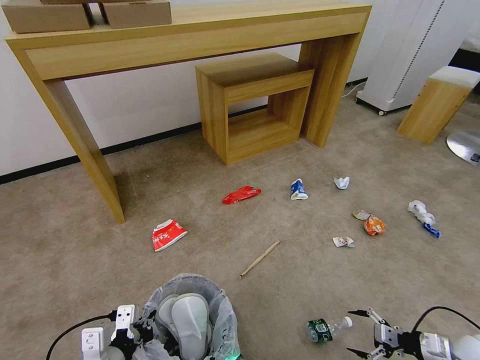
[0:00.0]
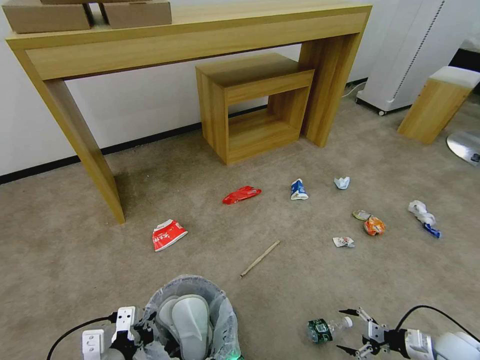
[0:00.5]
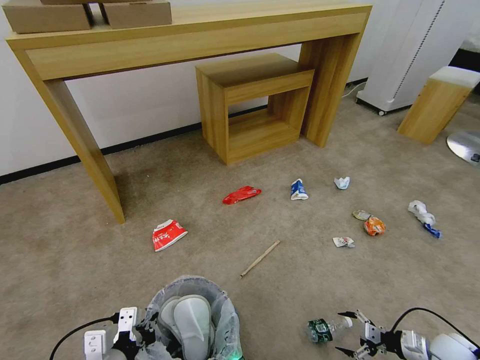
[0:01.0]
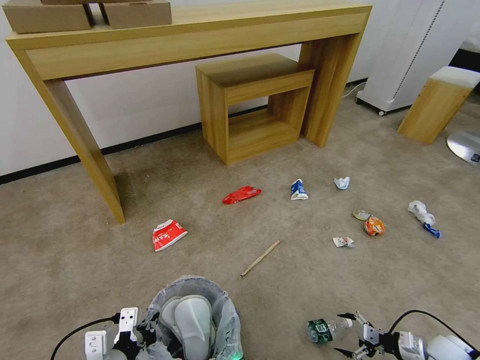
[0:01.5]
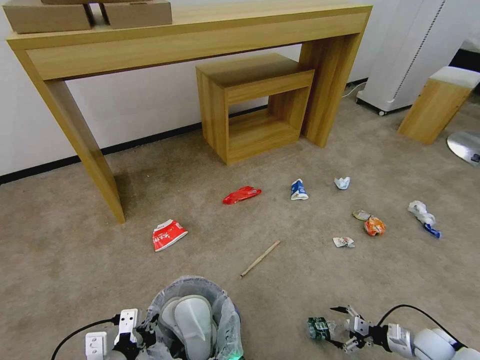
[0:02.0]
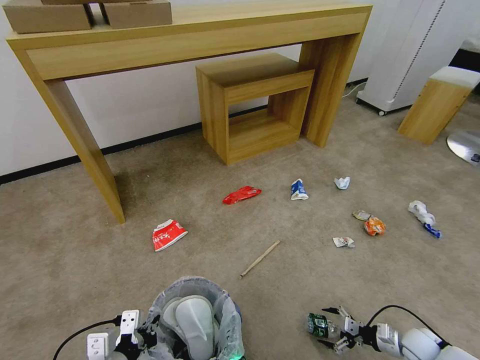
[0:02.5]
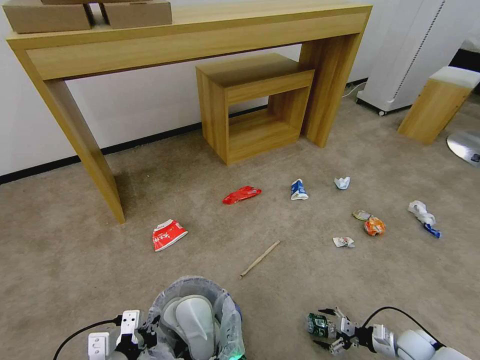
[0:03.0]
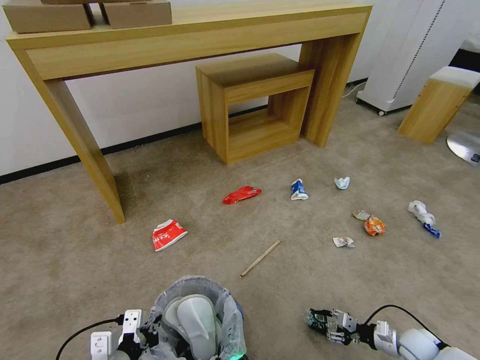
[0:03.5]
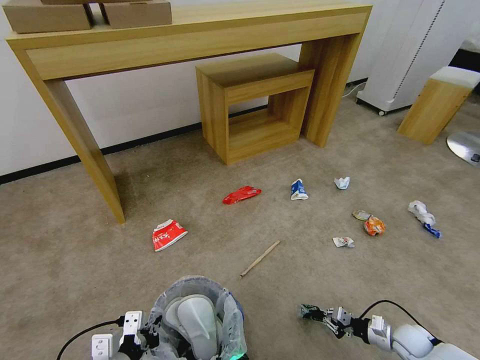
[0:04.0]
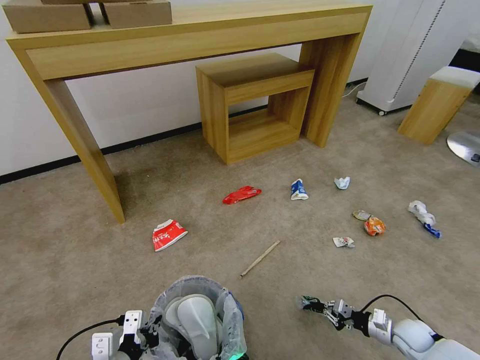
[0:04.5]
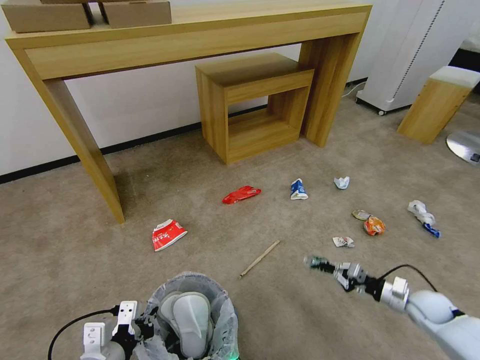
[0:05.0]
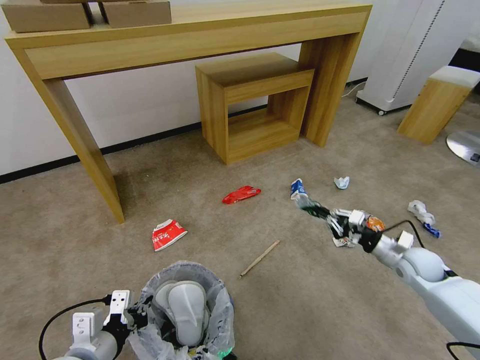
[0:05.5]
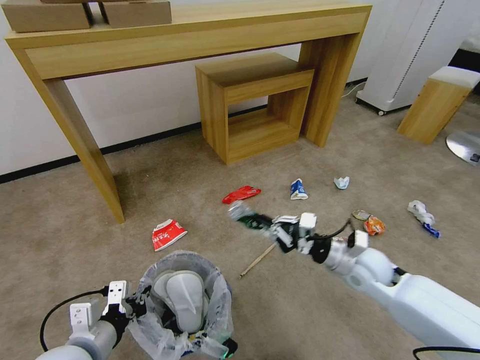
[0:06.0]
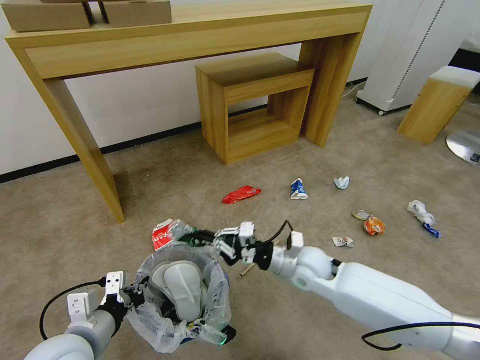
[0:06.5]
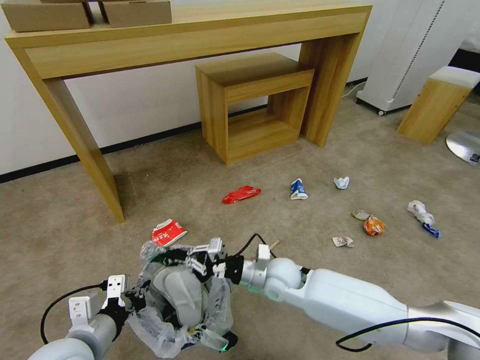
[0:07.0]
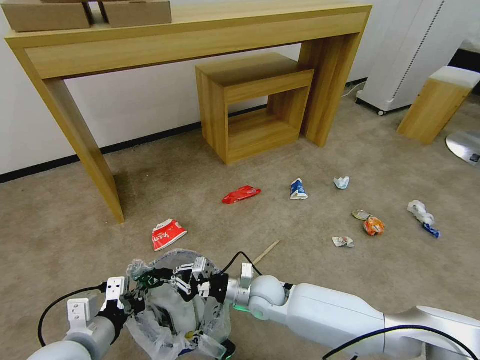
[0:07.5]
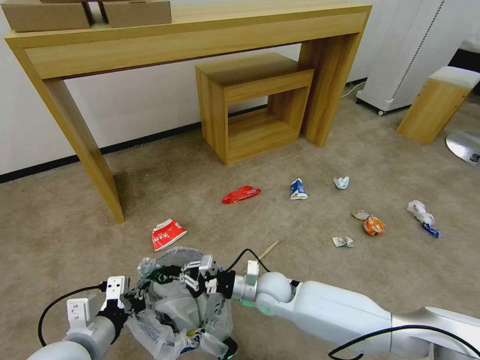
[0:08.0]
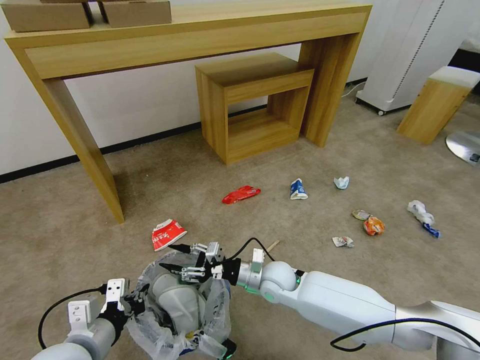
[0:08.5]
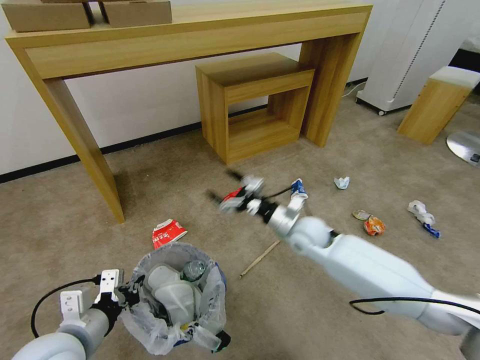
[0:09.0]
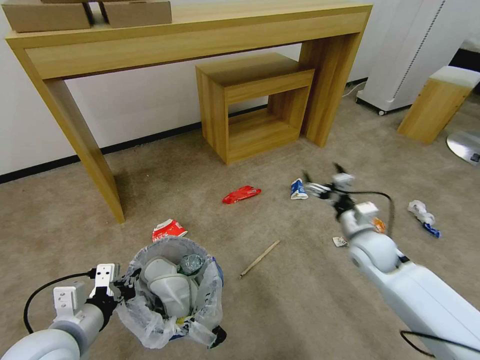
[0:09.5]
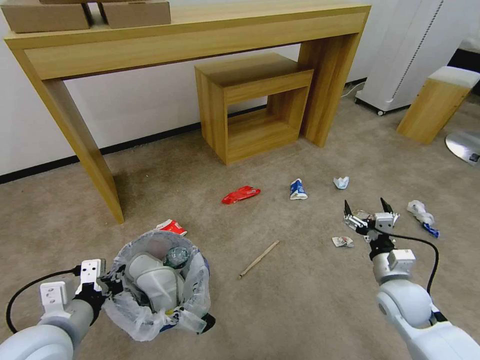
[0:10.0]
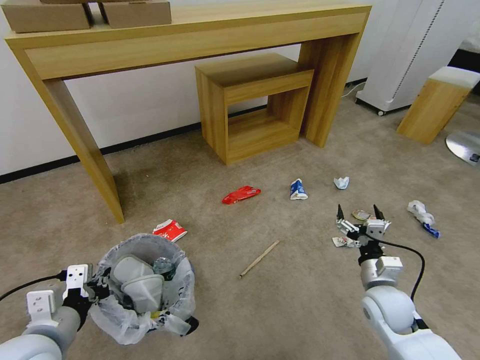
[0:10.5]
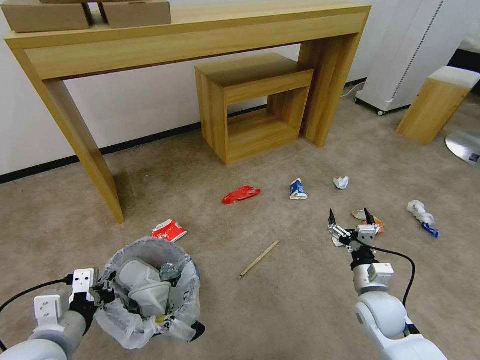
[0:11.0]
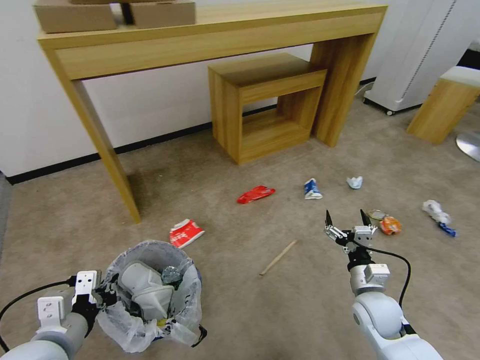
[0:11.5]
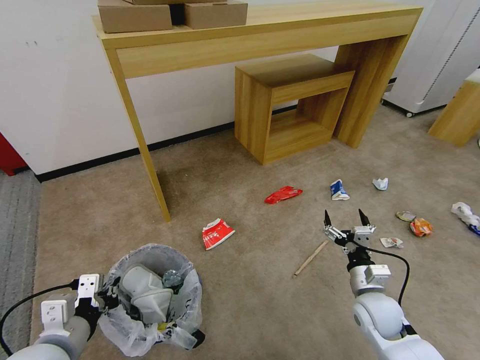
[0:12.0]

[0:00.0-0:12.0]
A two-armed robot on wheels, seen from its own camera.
Task of the whole recording: Pick up the trash bin and place the garbage on the floor into it.
0:00.0 to 0:02.0: The right gripper is displaced downward by roughly 10 cm.
0:02.0 to 0:04.0: The right gripper closes its fingers.
0:04.0 to 0:06.0: The right gripper shifts some 30 cm upward, to the left and forward; the left gripper changes place by roughly 5 cm.
0:06.0 to 0:08.0: The right gripper moves to the left and downward, about 20 cm.
0:08.0 to 0:10.0: The right gripper moves to the right, about 30 cm, and opens up.
0:10.0 to 0:12.0: The right gripper moves roughly 5 cm.

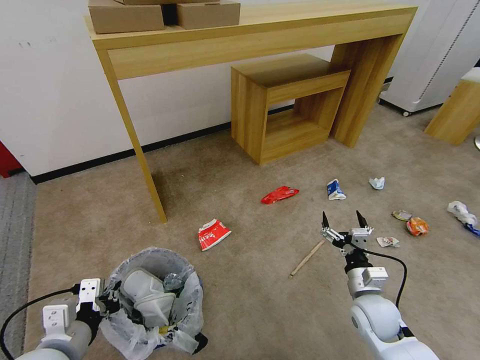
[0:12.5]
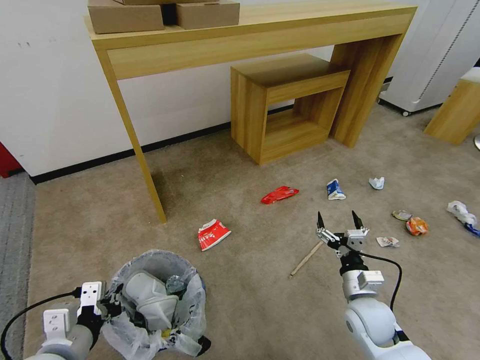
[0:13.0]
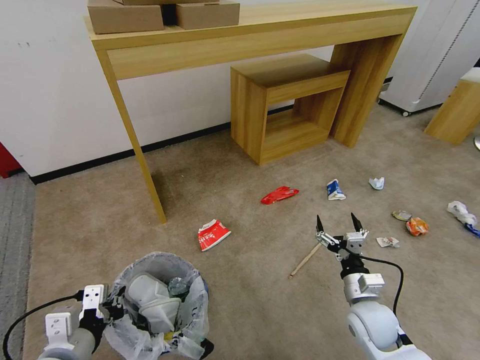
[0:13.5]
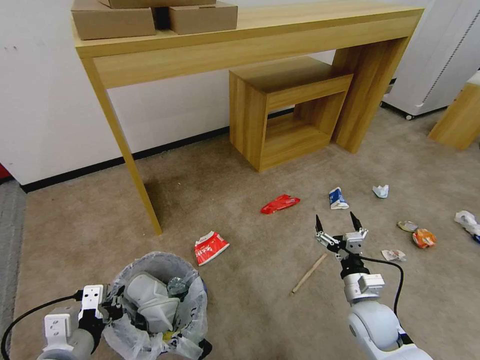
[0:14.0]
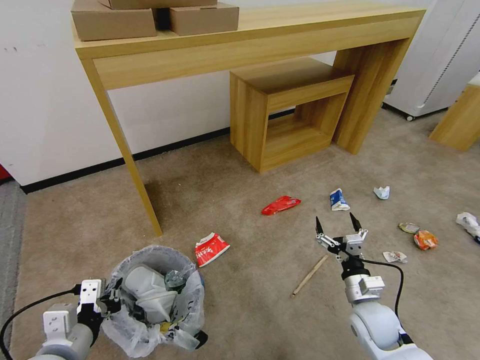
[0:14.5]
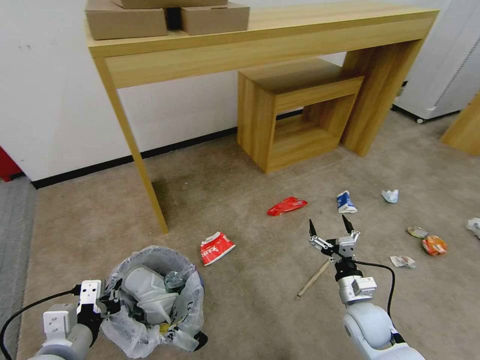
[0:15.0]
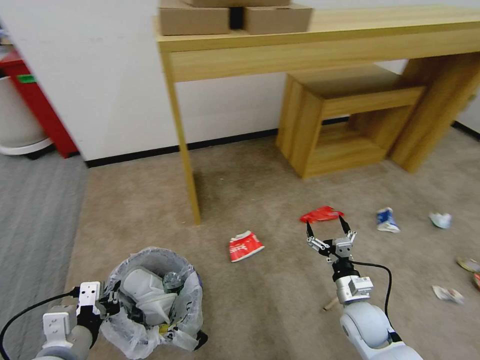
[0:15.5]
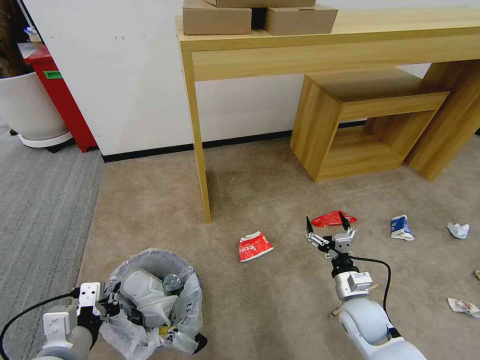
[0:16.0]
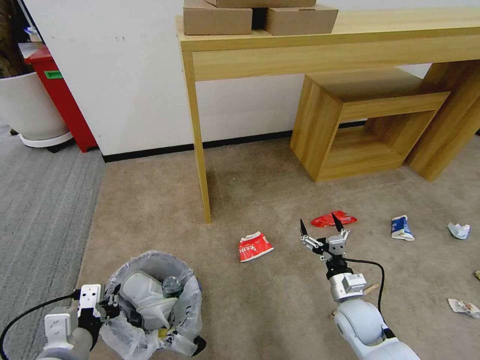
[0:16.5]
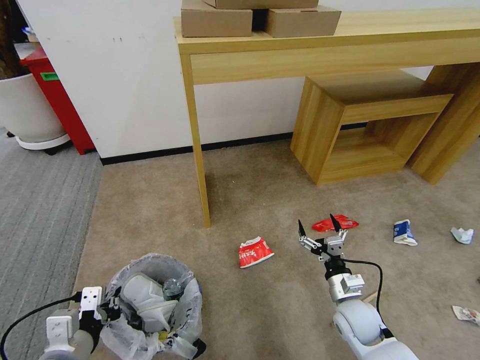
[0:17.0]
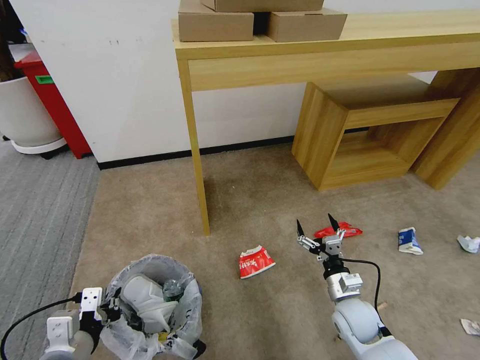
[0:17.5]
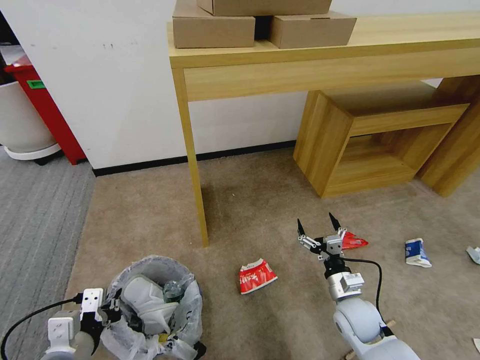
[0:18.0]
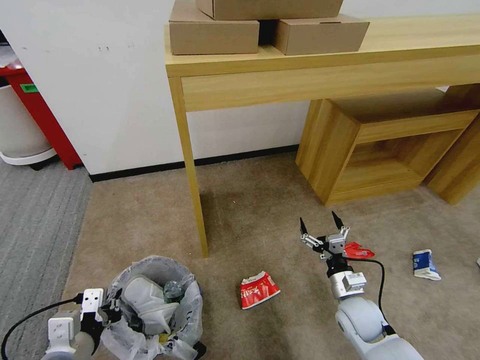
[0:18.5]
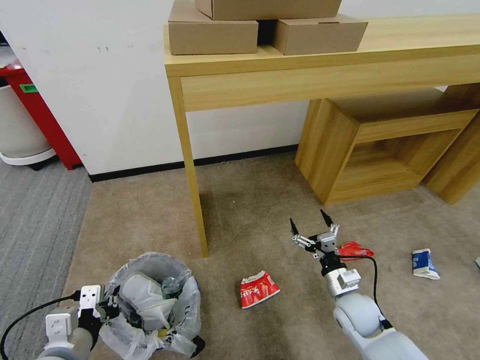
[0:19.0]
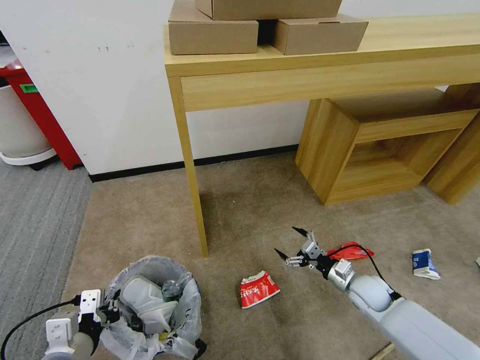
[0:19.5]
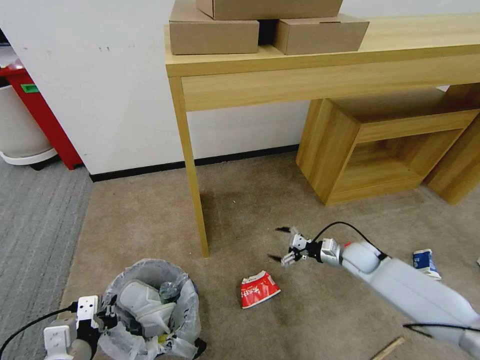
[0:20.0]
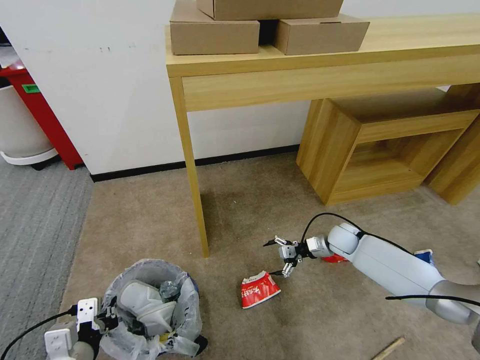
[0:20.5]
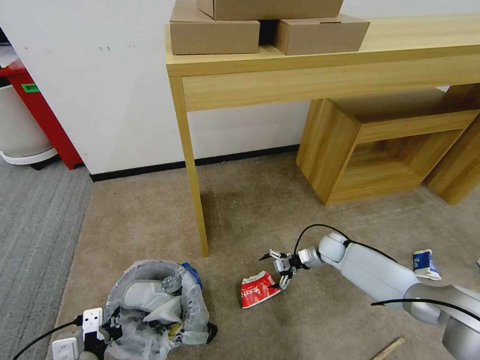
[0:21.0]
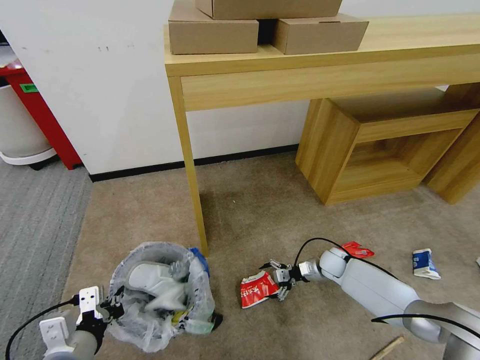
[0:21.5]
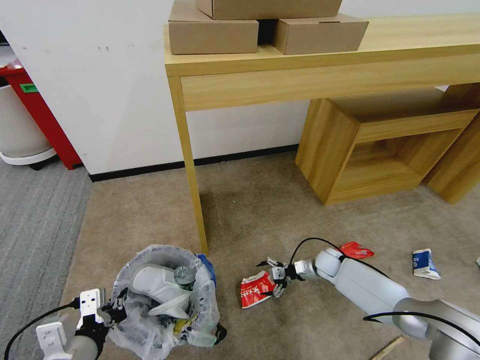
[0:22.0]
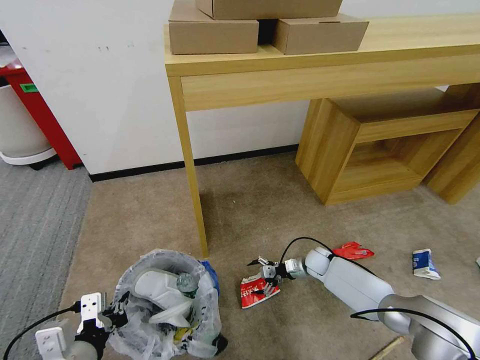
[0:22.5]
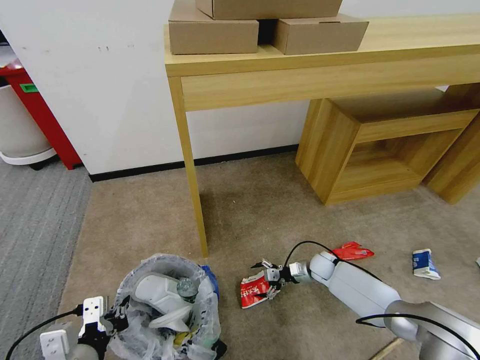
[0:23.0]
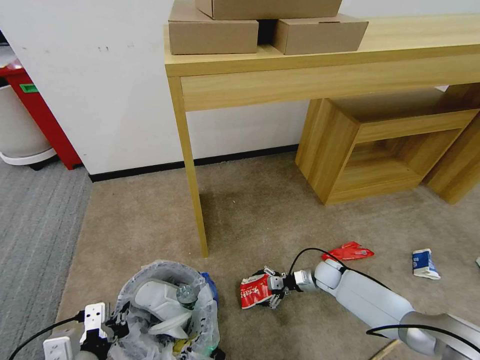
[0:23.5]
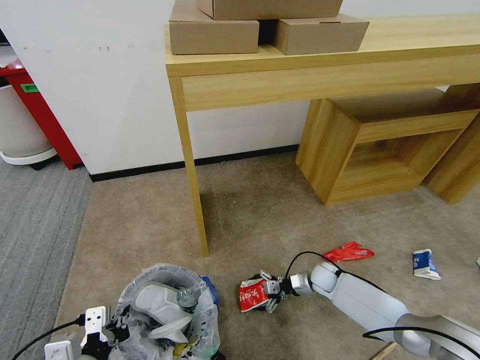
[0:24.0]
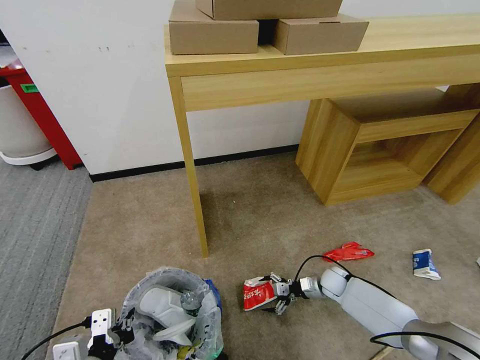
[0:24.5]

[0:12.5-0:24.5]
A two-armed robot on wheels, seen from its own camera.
Task of the whole recording: Pick up the trash bin and place the garbage on the floor into it.
0:12.5 to 0:14.5: The grippers move only a little.
0:18.5 to 0:20.5: The right gripper goes roughly 20 cm forward.
0:20.5 to 0:22.5: The right gripper is displaced downward and to the left by about 10 cm. The left gripper moves upward, about 5 cm.
0:22.5 to 0:24.5: The right gripper travels backward by approximately 5 cm.

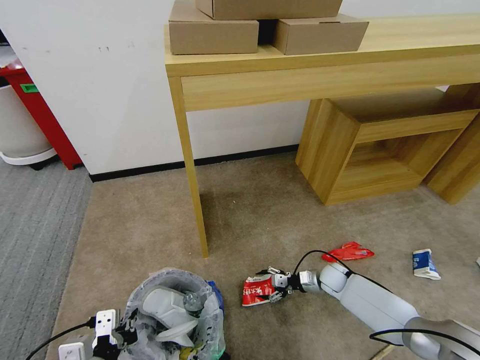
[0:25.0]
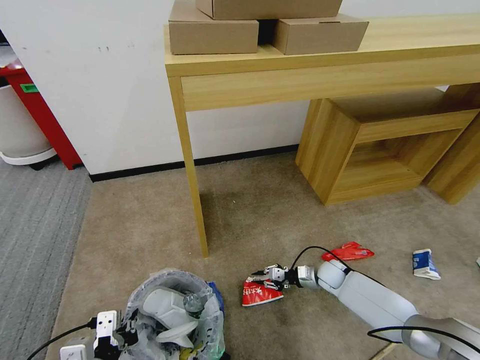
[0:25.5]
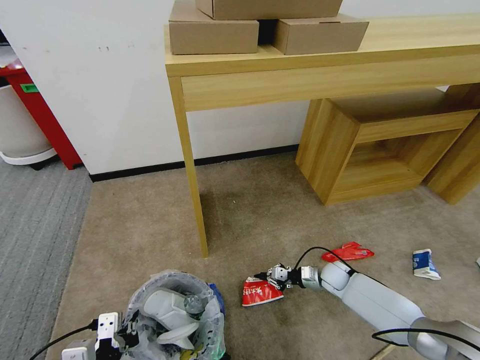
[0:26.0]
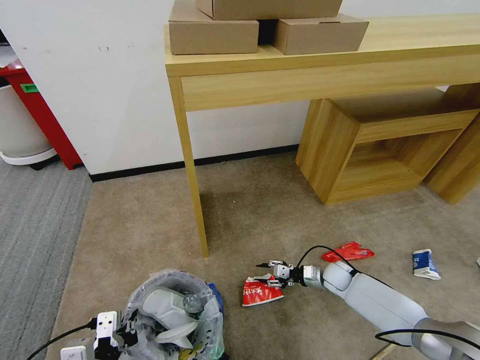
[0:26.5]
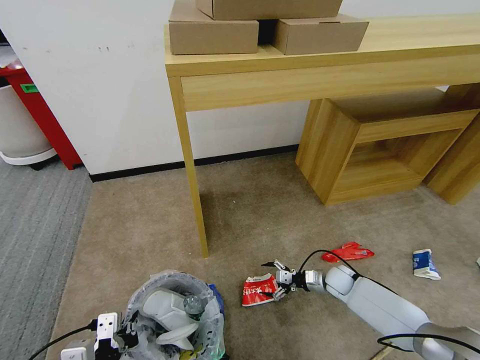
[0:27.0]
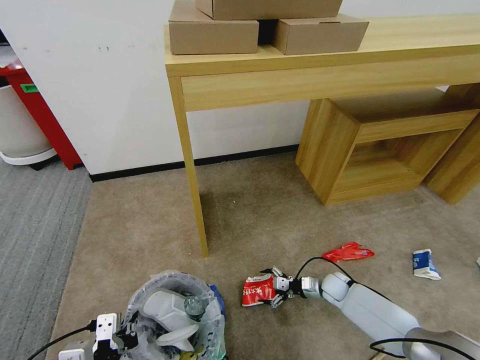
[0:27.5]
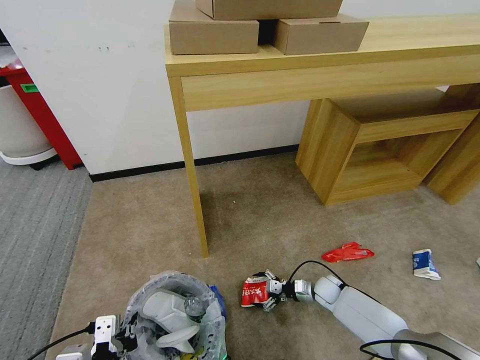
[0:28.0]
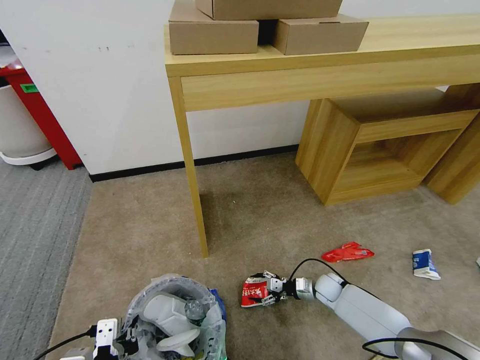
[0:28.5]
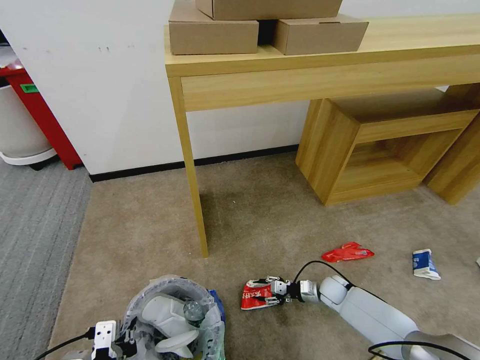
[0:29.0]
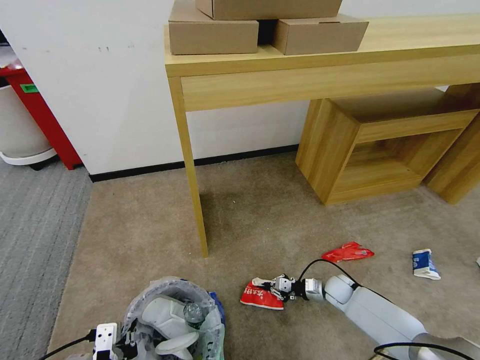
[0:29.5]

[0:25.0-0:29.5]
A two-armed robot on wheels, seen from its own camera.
Task of the whole recording: Pick up the trash bin and place the garbage on the floor into it.
0:25.0 to 0:27.0: The right gripper closes and opens again.
0:27.0 to 0:29.5: The right gripper closes its fingers.
